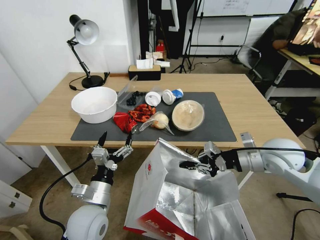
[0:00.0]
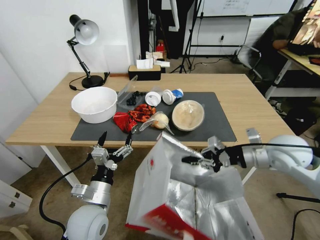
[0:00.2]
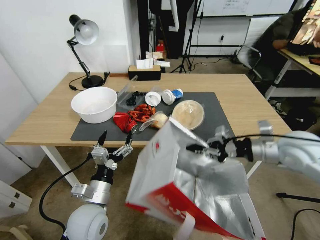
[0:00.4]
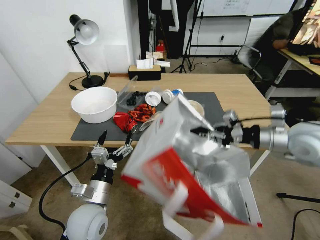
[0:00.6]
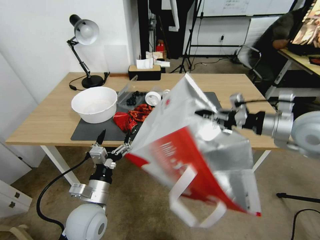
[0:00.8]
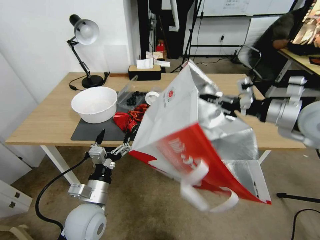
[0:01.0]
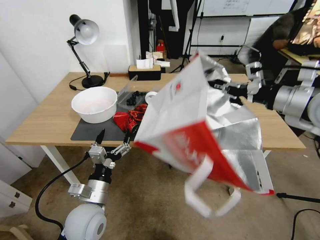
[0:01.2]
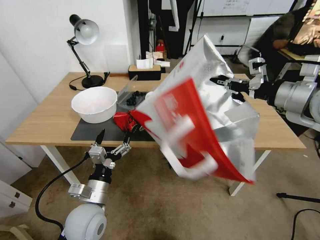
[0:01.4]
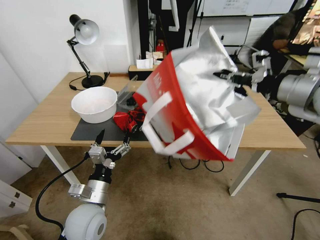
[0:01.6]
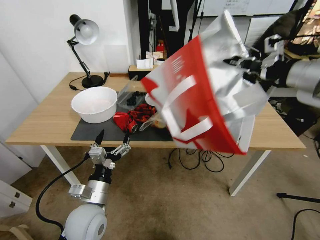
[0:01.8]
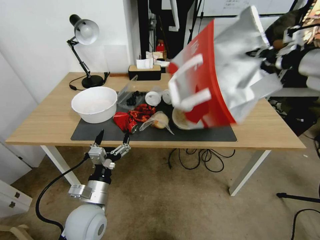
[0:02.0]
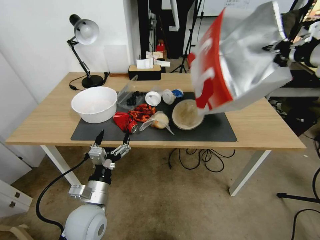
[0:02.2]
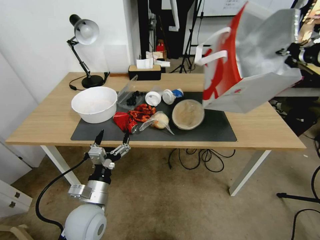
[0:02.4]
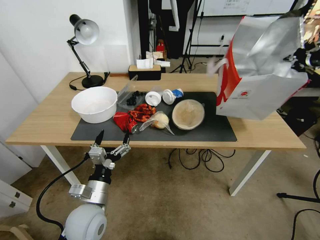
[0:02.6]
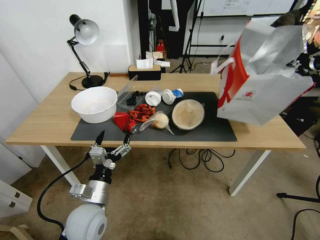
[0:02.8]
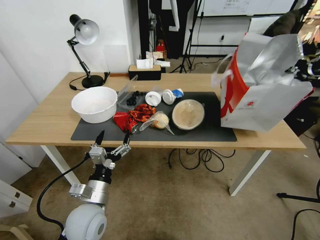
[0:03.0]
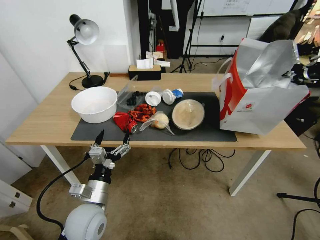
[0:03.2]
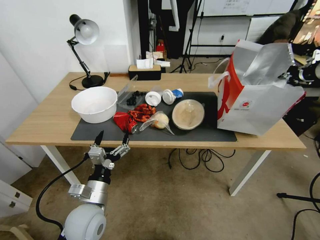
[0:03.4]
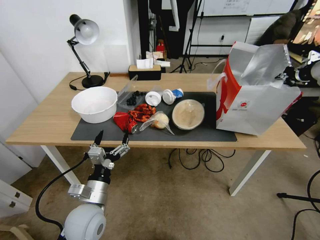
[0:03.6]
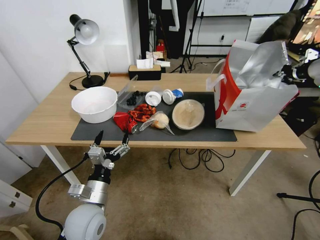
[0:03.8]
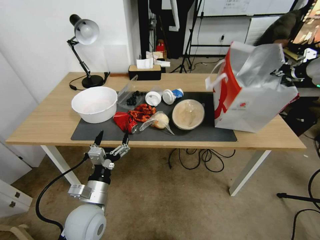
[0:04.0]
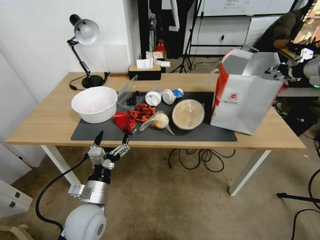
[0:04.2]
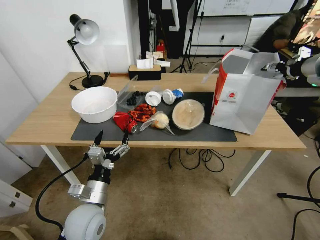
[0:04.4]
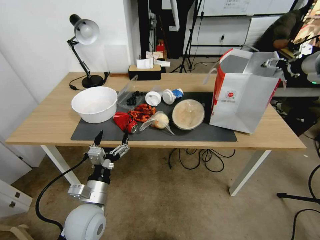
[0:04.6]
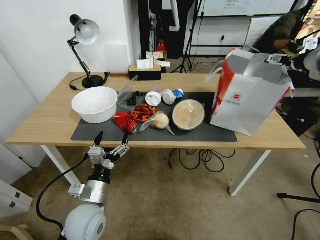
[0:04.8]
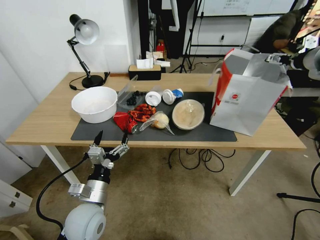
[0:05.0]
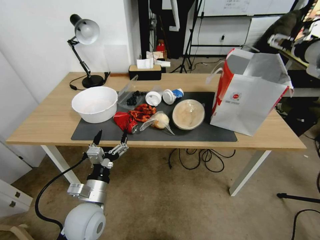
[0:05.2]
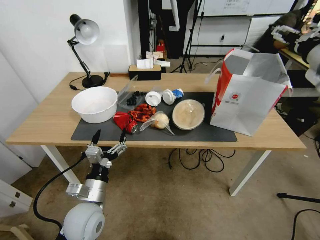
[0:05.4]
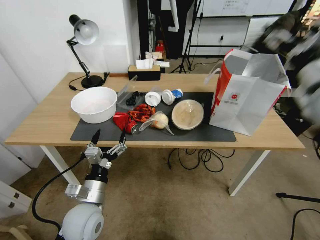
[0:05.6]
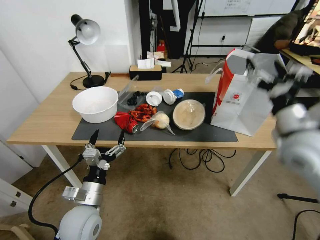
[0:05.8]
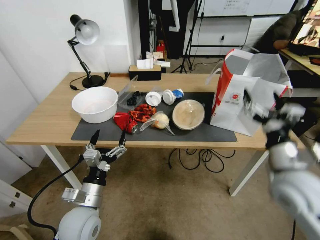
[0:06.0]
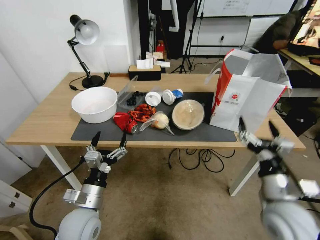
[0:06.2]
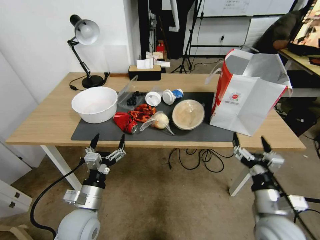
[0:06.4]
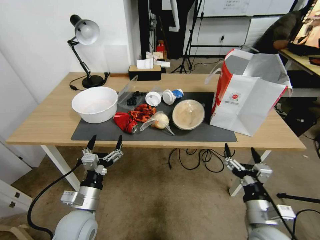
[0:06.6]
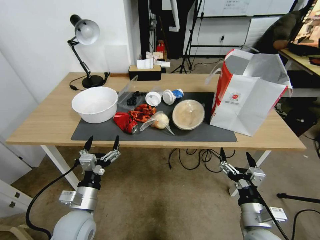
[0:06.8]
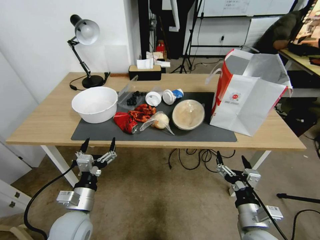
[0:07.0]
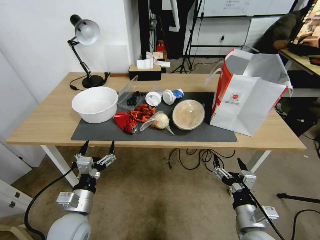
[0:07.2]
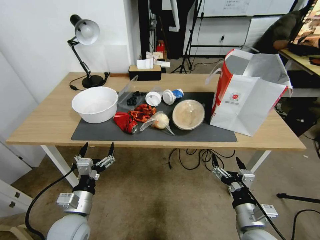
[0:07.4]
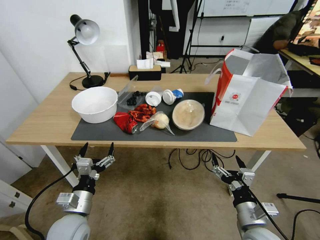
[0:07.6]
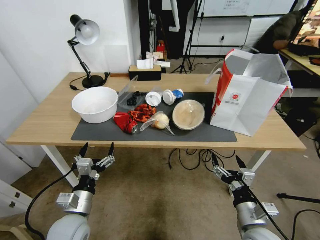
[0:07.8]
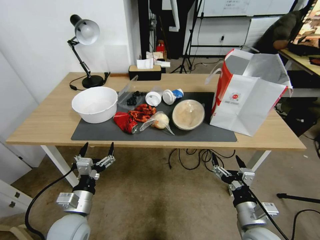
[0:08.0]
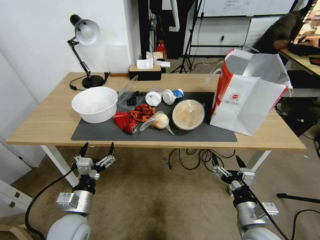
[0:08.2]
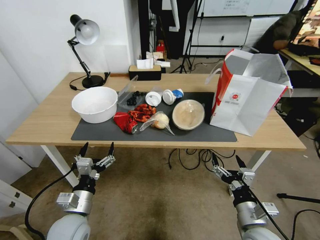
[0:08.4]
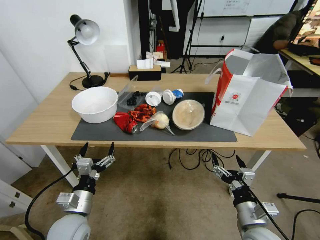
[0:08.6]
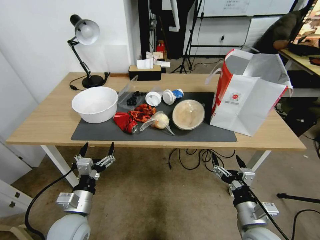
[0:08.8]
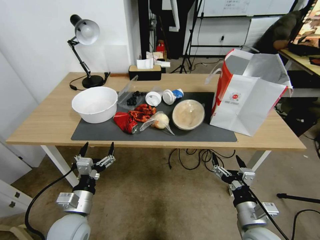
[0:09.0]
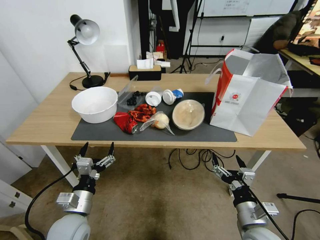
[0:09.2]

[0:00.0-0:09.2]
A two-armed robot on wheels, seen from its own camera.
Task of the whole recording: Pick up the food delivery bag from the floor and place it on the table.
0:00.0 to 0:01.6: The right gripper moves upward, about 20 cm.
0:01.6 to 0:03.0: The right gripper goes some 15 cm to the right and forward.
0:03.0 to 0:04.6: The right gripper moves approximately 5 cm, and opens.
0:04.6 to 0:06.2: The right gripper is displaced downward, backward and to the left by roughly 40 cm.
0:06.2 to 0:07.6: The right gripper moves downward, approximately 10 cm.
0:07.6 to 0:09.2: Both grippers stay about where they are.
